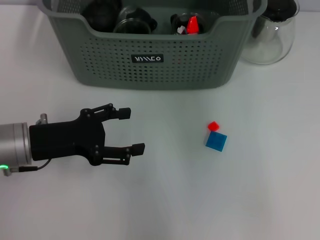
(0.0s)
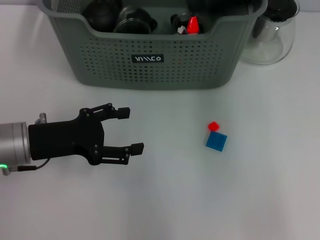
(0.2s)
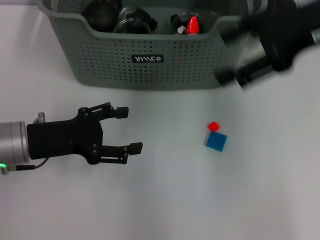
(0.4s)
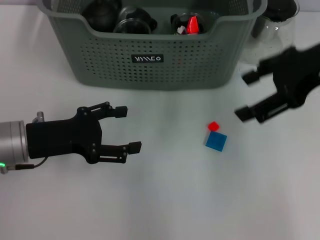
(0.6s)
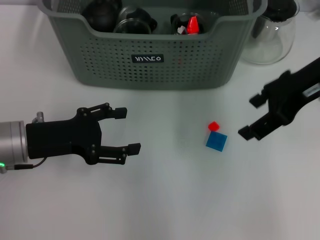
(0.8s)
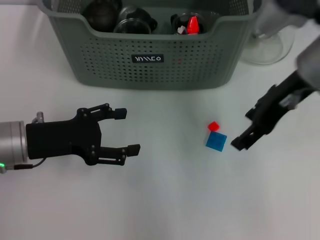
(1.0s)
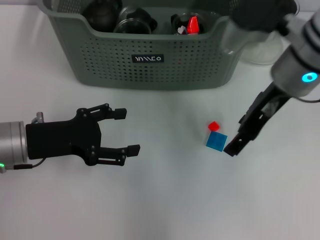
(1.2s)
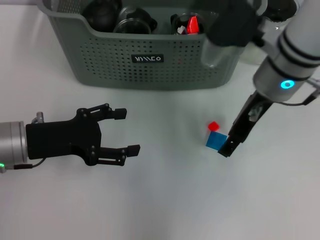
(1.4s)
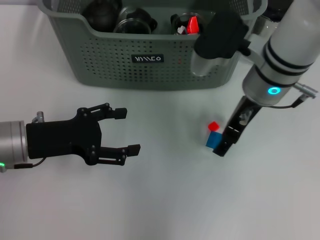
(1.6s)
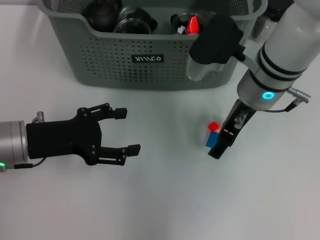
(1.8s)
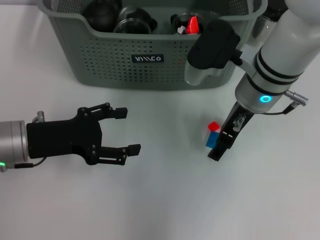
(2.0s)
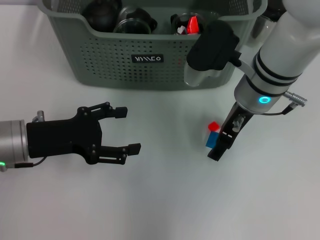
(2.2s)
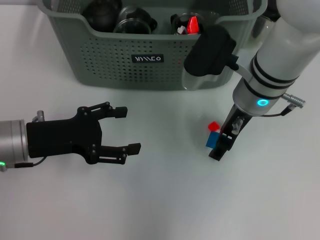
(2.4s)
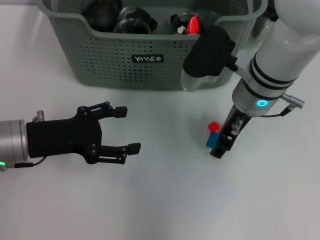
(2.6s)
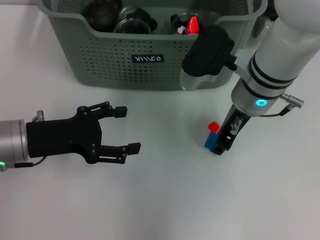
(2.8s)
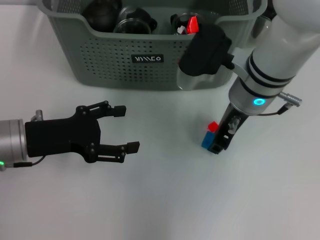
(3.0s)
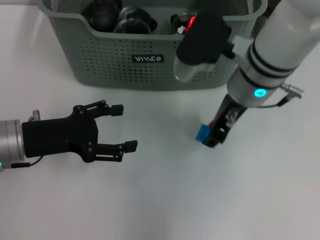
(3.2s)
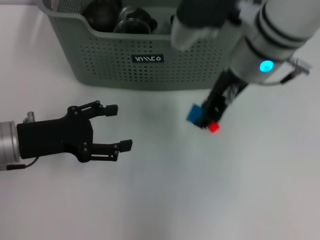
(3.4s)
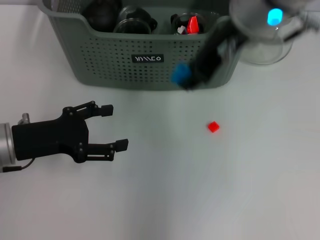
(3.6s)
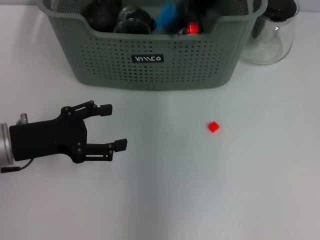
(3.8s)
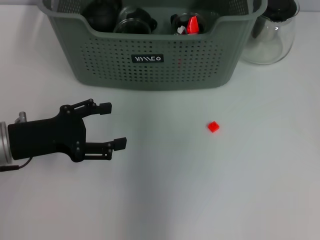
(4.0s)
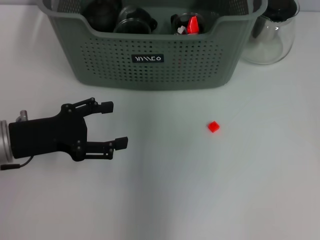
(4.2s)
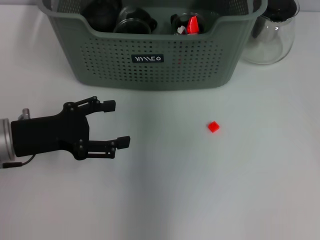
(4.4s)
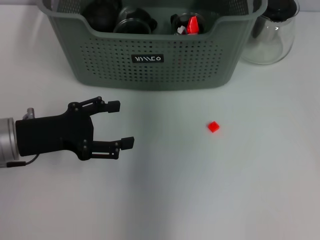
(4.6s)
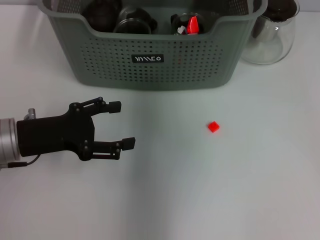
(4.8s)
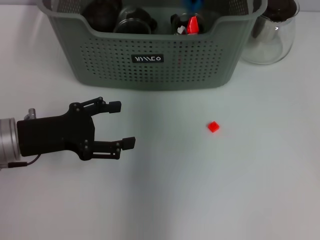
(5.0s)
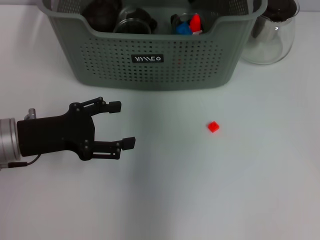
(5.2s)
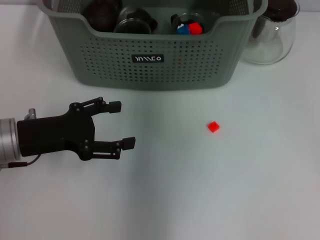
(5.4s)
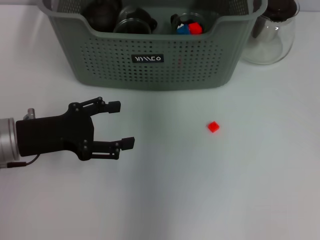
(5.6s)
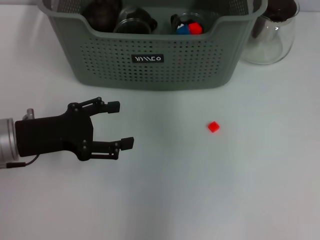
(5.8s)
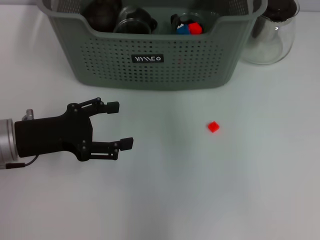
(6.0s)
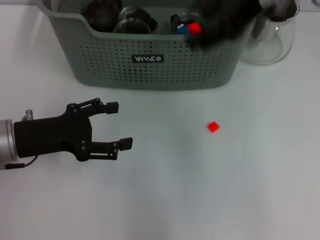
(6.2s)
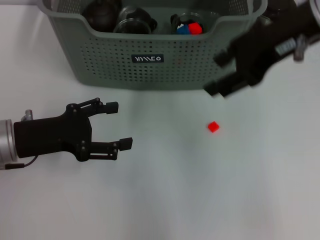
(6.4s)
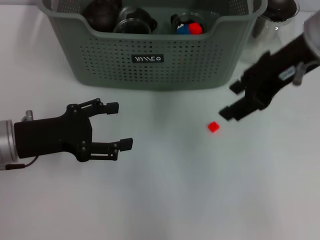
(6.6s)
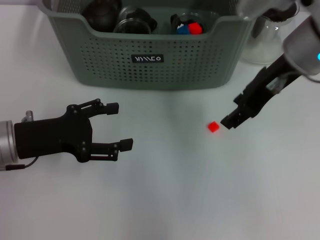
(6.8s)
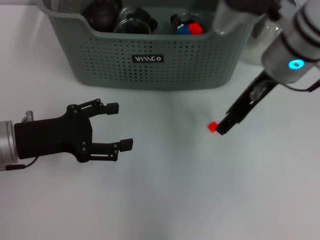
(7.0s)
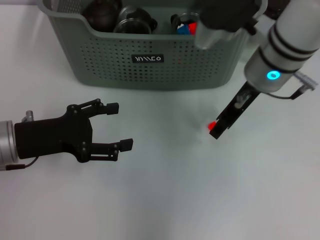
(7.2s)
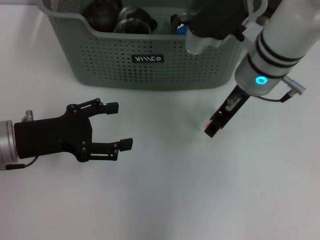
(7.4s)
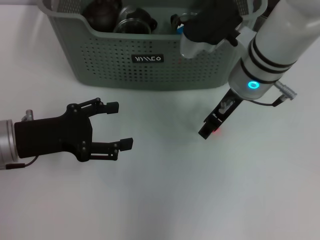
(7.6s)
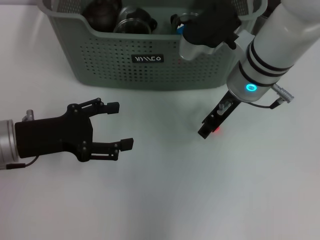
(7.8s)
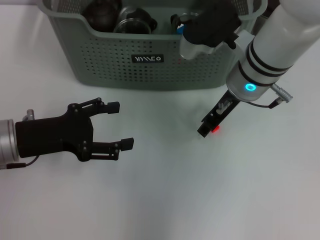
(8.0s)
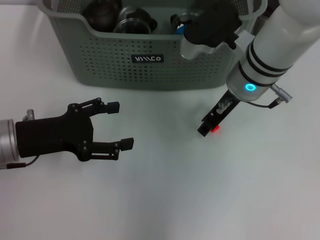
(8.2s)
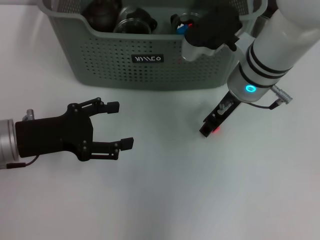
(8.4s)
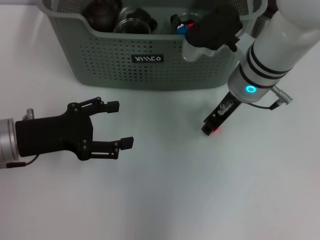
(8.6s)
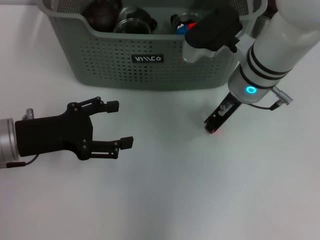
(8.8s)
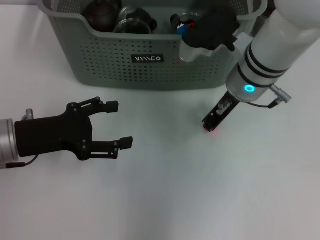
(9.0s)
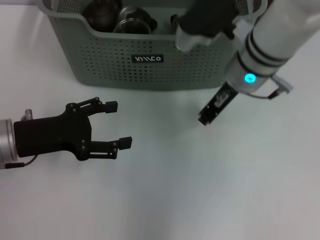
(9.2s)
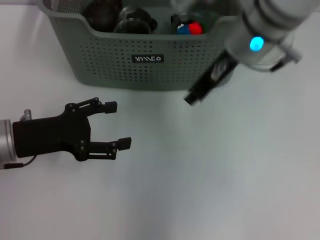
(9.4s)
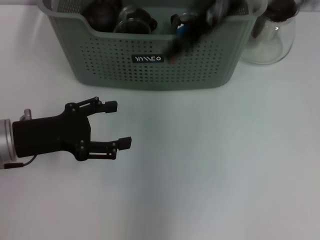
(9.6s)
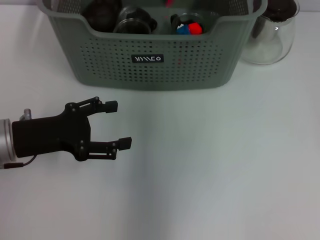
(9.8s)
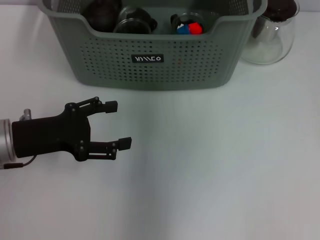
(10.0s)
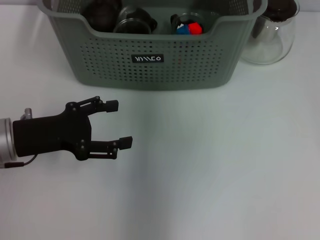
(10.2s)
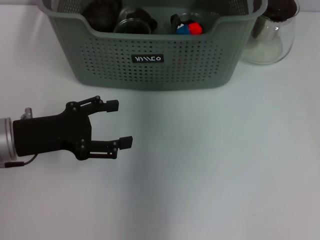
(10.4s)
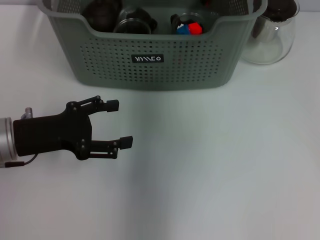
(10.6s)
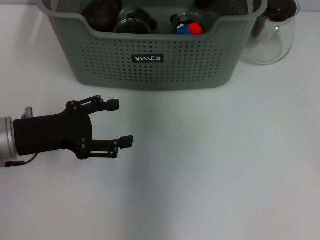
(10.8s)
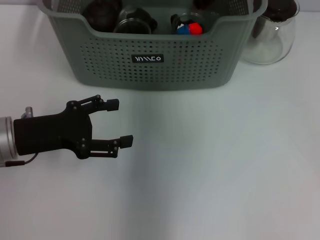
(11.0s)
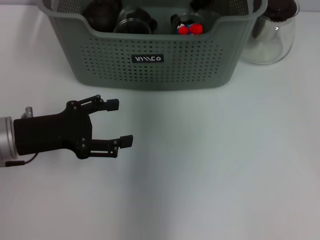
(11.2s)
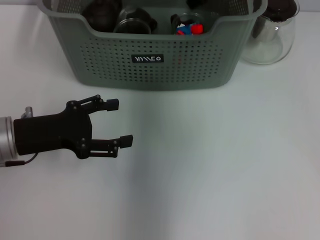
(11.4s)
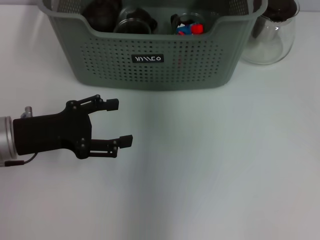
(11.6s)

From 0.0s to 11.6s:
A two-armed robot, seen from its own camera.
Task of the whole recording: pick up the teacup on the table and place it into the storage bin, pick up the block on the table and place it into the storage bin.
Step, from 0.0s to 2.8s: Grasp the dark blue block with right gripper.
Step, from 3.0s to 5.0s: Place the dark blue block in the storage box with right gripper.
Step, from 5.2s to 8.8s: Grasp the orange block with right gripper.
Step, from 9.0s to 11.0s: Place the orange block in the storage box with right gripper.
From 0.0s to 1.4s: The right gripper shifts roughly 15 cm downward.
From 1.4s to 2.8s: The grippers make only small movements.
From 2.8s to 4.4s: The right gripper moves upward and forward, approximately 20 cm.
From 4.4s to 5.8s: The right gripper reaches approximately 5 cm downward, then returns.
From 5.8s to 7.2s: The right gripper shifts approximately 15 cm downward.
From 7.2s to 8.8s: The grippers make only small movements.
From 8.8s to 10.2s: The right gripper shifts roughly 20 cm upward.

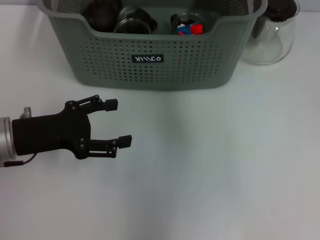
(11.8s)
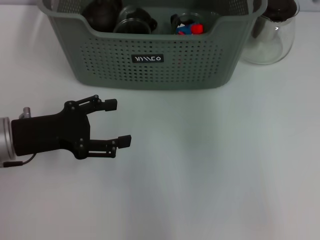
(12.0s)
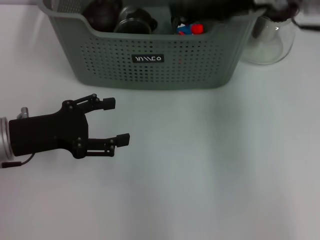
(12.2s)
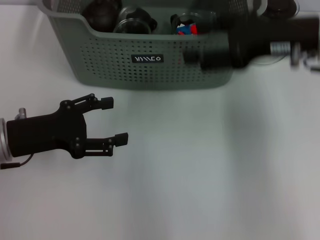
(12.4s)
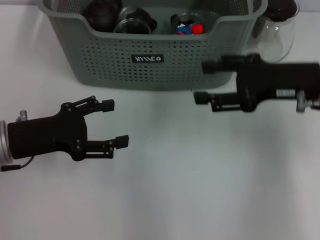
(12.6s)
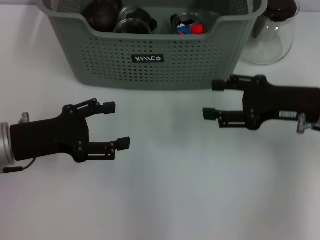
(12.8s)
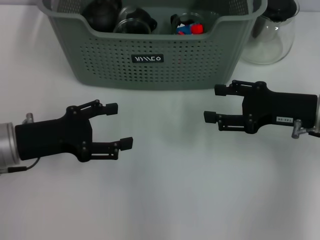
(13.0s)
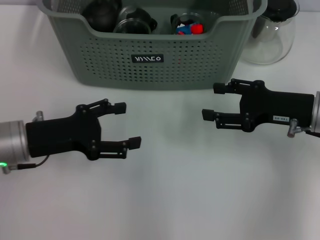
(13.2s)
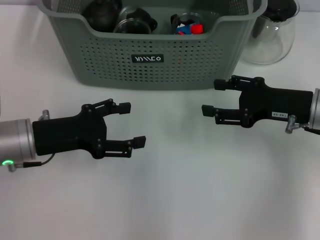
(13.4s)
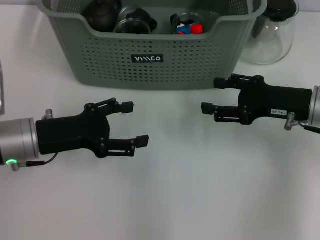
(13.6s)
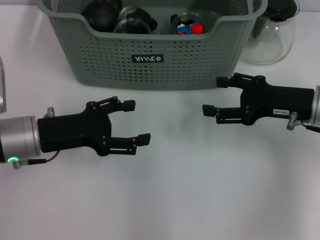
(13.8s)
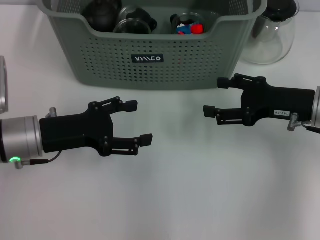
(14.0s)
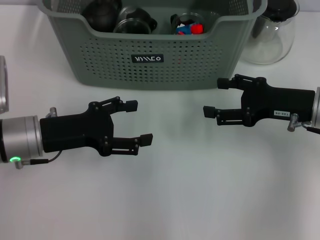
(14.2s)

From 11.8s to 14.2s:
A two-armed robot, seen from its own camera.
Task of the whole recording: pick up the teacup on the table and place it into the storage bin, pick up the block on the table and place it into the storage bin.
From 11.8s to 13.0s: The right gripper moves downward, backward and to the right, about 25 cm.
From 13.0s to 14.2s: The grippers move only a little.
